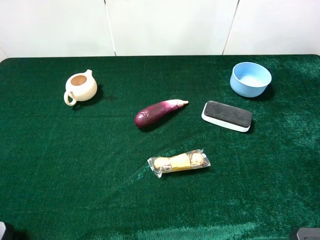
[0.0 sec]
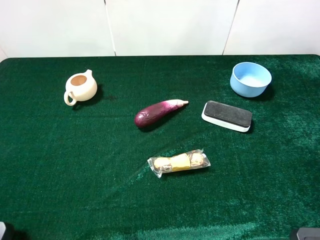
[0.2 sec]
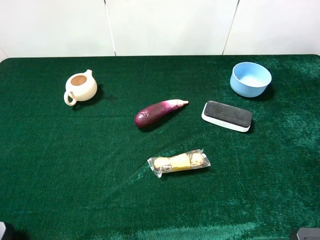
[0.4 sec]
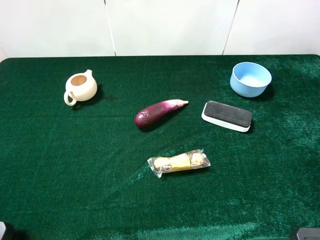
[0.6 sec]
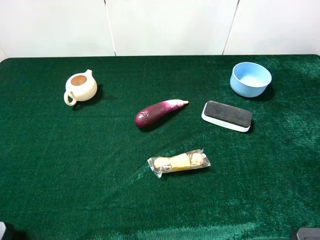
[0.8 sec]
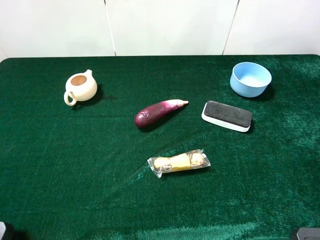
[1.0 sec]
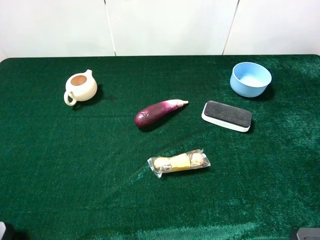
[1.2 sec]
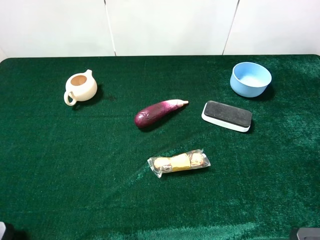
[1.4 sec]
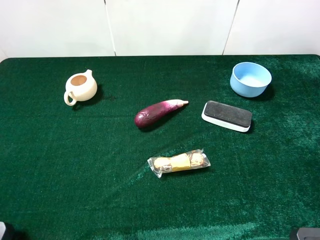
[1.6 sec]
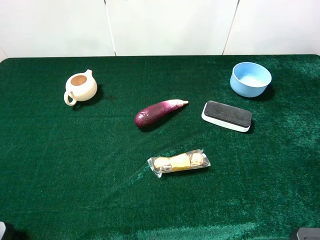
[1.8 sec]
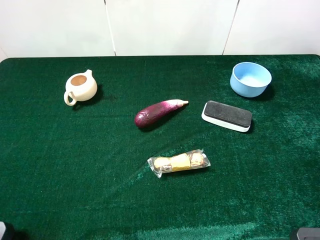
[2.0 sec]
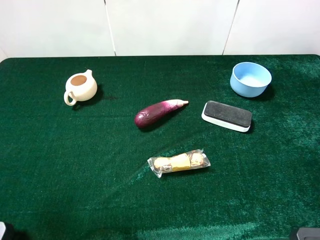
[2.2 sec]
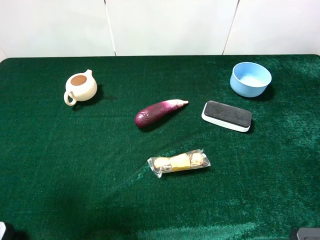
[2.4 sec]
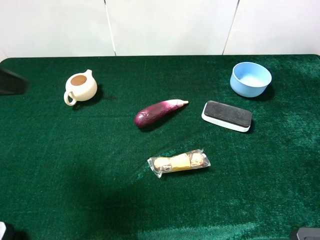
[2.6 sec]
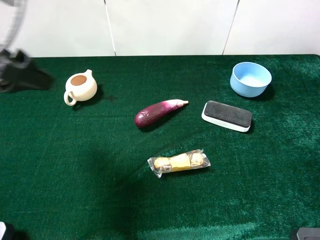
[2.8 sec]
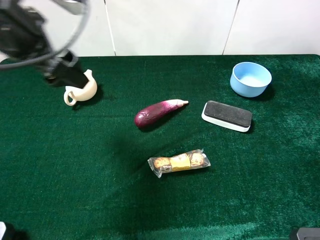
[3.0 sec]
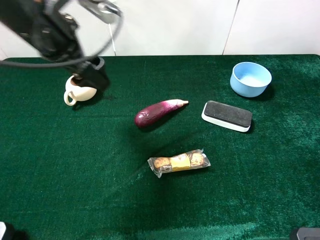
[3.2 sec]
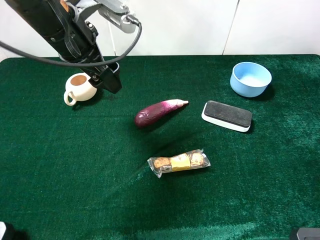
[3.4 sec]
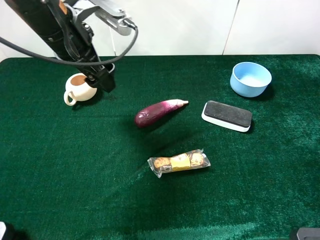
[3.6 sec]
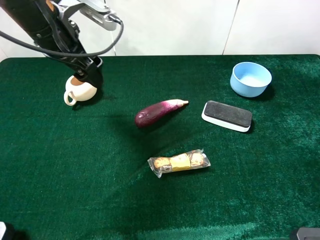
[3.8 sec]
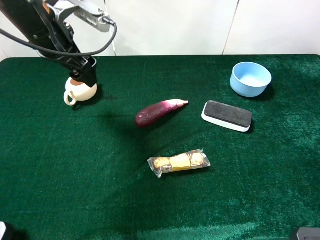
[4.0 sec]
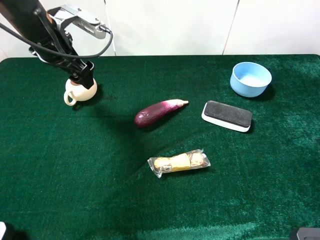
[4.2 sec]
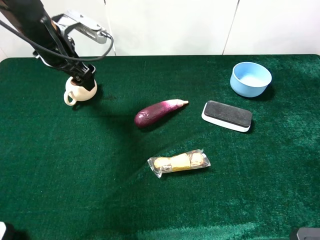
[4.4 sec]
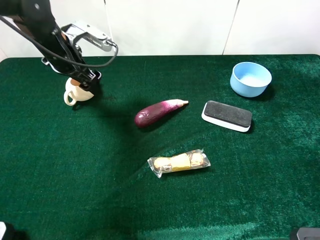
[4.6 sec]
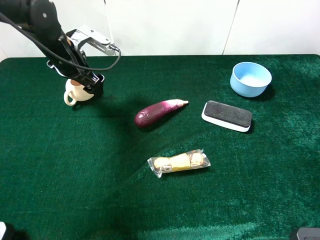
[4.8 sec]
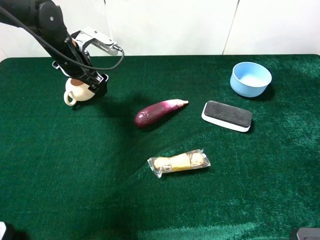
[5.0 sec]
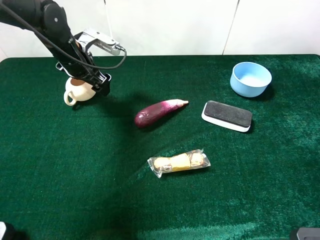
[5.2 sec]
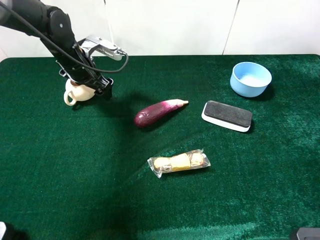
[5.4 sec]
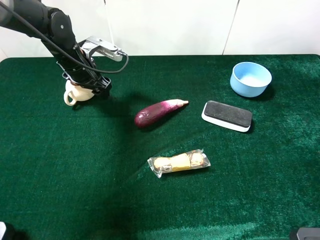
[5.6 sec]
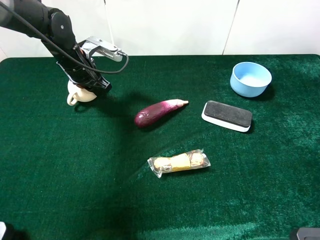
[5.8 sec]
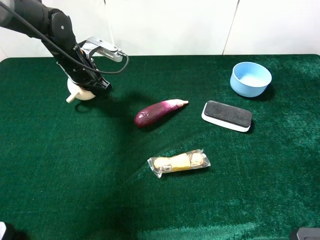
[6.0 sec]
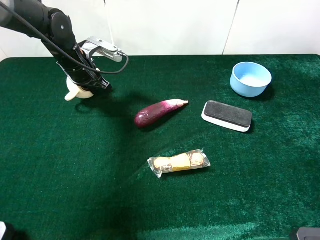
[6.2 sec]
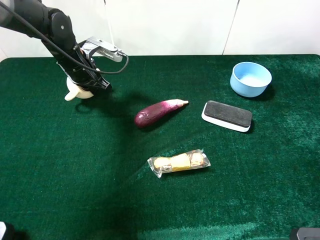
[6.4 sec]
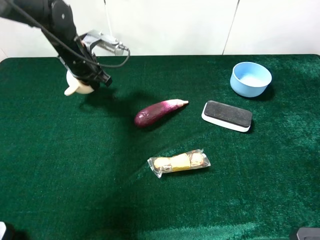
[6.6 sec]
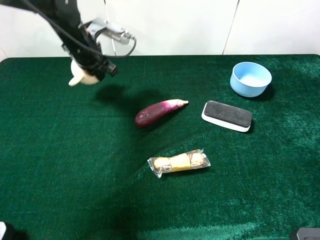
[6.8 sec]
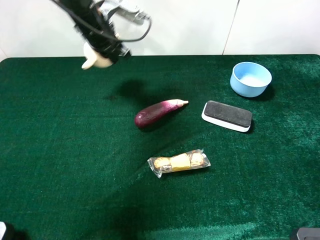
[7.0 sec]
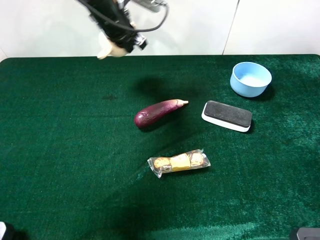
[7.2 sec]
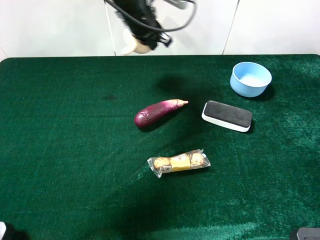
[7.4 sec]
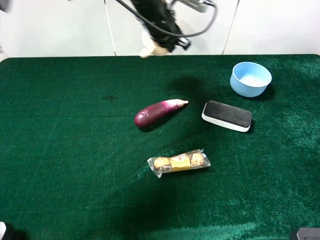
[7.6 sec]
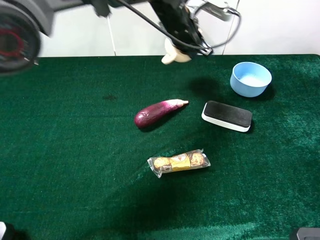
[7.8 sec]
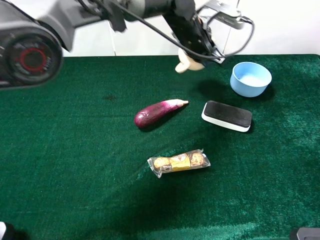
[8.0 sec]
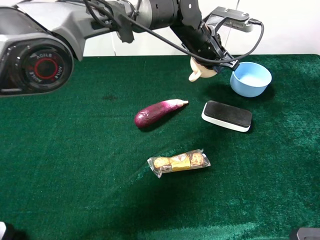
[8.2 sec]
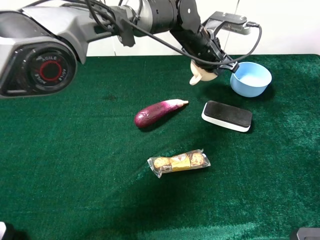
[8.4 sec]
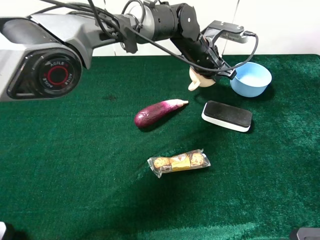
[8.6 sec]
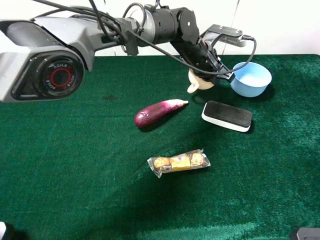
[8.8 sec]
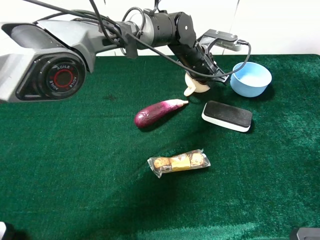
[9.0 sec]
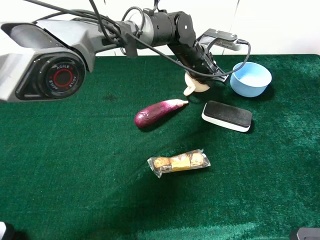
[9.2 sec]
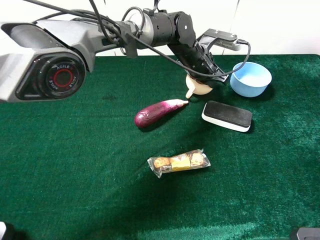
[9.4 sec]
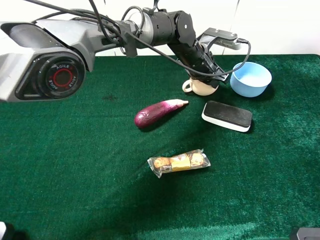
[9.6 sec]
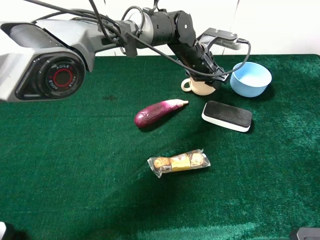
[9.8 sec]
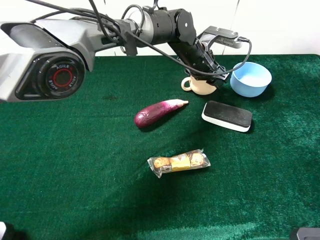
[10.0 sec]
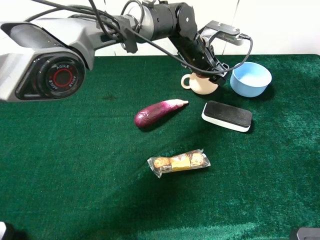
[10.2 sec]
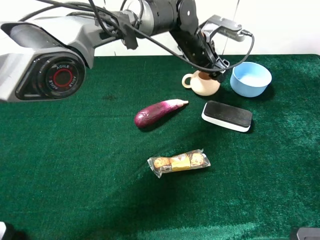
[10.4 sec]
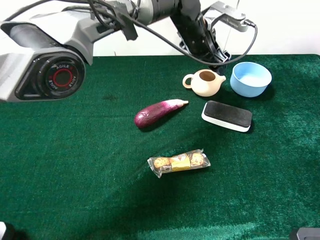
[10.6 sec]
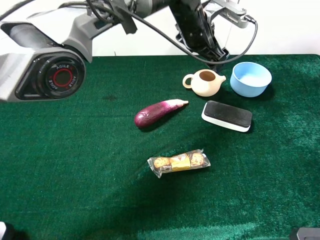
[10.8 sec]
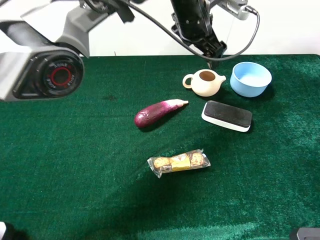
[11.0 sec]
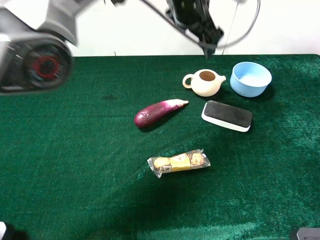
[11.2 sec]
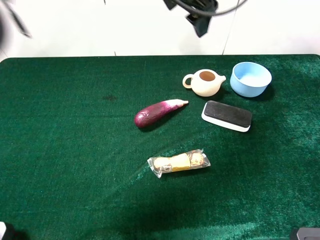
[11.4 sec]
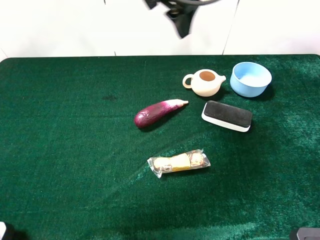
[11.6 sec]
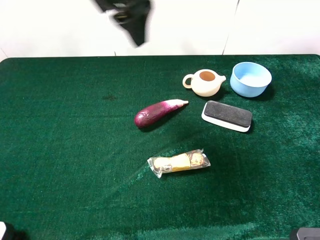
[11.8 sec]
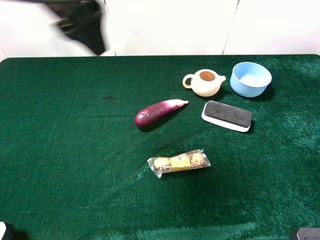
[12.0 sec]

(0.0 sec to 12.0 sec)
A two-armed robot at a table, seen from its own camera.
Task of the whole recording: the gripper move the object.
Step, 0.0 sec - 5.8 sec: Grasp the teapot with the left gripper.
Step, 6.0 sec - 9.6 sec: Place the teapot on the table with the left gripper.
0.0 sec - 1.6 sec: The two grippers keep their place.
1.6 sec - 3.0 sec: The left gripper heads forward and to the right, covering roughly 30 cm.
3.0 sec - 4.4 sec: The left gripper heads forward and downward, covering roughly 15 cm.
4.4 sec - 6.0 sec: The left gripper moves downward, some 5 cm, and closes its fingers.
6.0 sec - 7.6 sec: The left gripper travels to the right and upward by approximately 20 cm.
7.6 sec - 9.0 sec: The left gripper is displaced downward and to the right by about 10 cm.
9.0 sec - 10.4 sec: The left gripper opens.
10.4 sec - 12.0 sec: The left gripper travels upward, to the left and backward by roughly 35 cm.

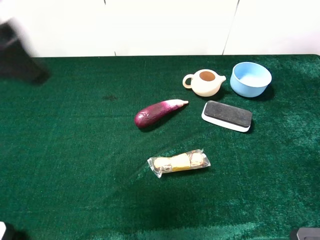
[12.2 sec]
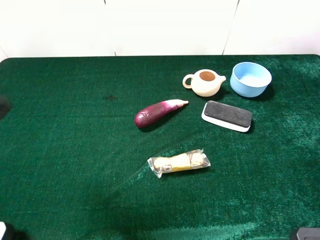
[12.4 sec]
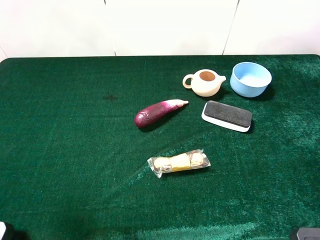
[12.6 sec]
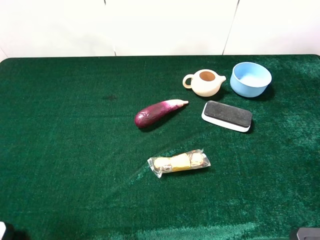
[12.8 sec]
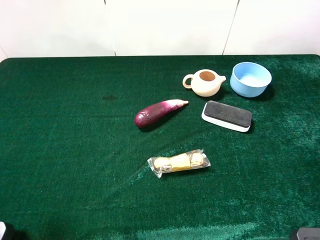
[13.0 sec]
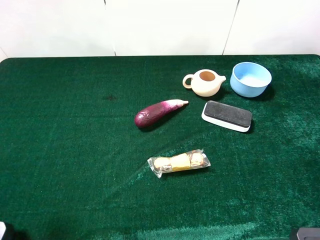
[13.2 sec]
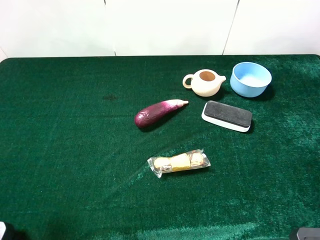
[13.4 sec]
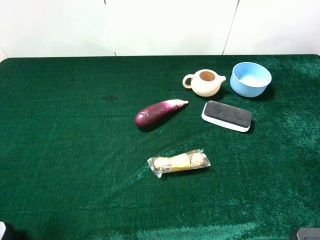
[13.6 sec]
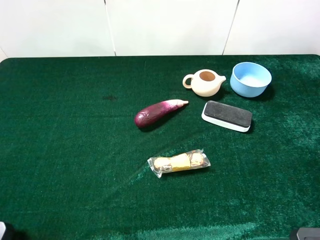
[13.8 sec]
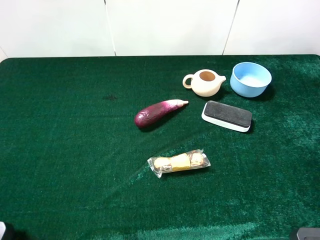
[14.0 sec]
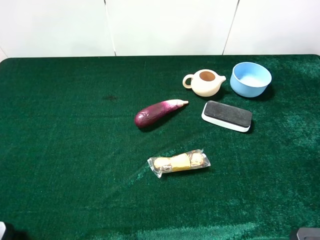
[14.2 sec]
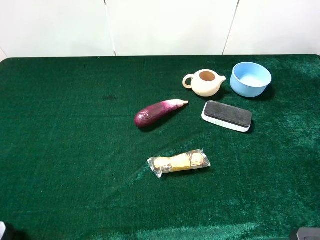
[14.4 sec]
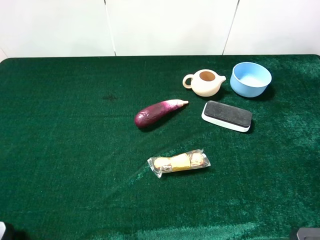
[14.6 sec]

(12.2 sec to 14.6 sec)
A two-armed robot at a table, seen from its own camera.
Task of the whole recording: the gripper move the object.
12.2 sec - 13.4 sec: The left gripper shifts some 15 cm backward, downward and to the left.
